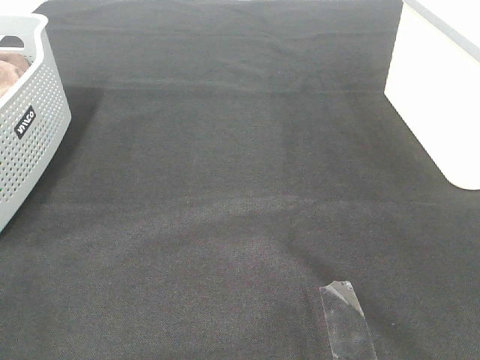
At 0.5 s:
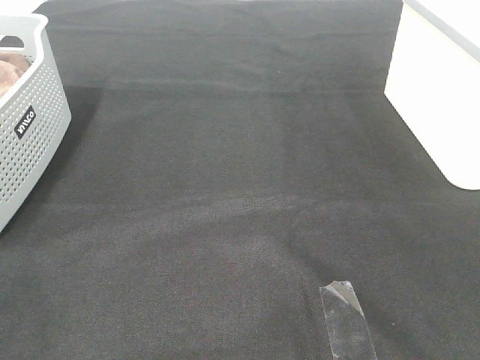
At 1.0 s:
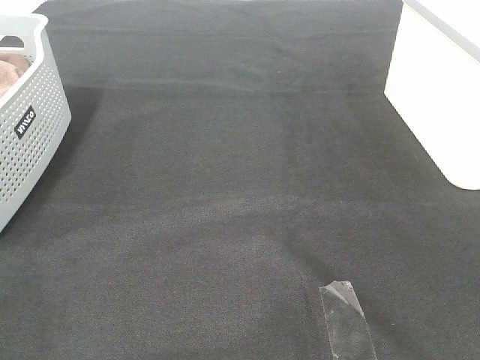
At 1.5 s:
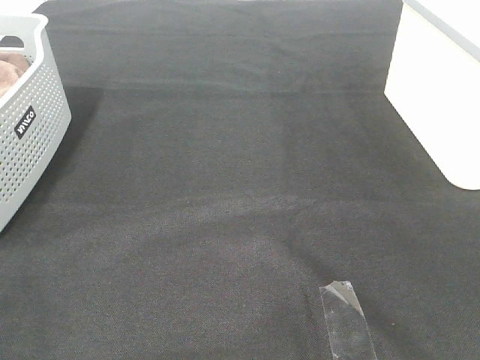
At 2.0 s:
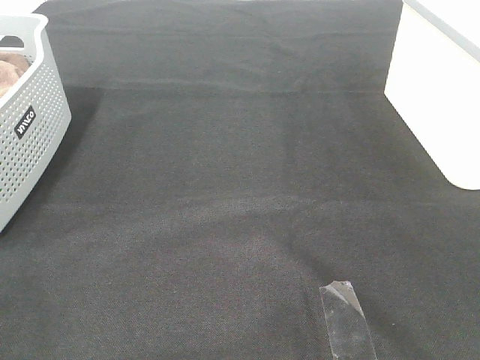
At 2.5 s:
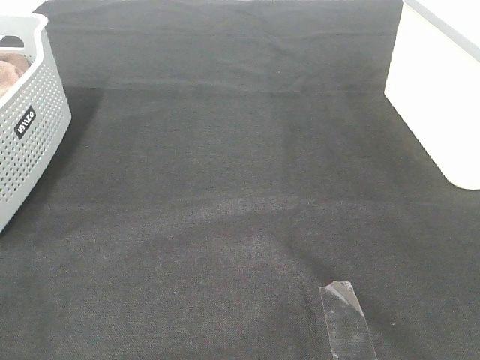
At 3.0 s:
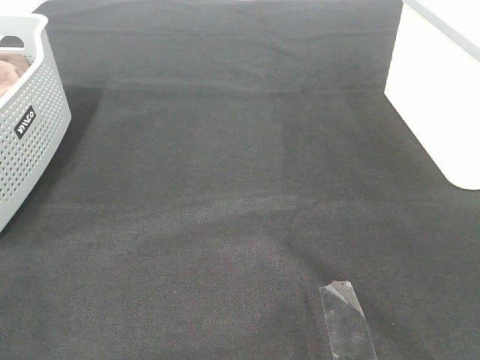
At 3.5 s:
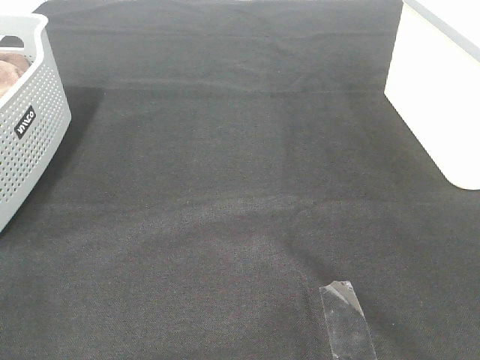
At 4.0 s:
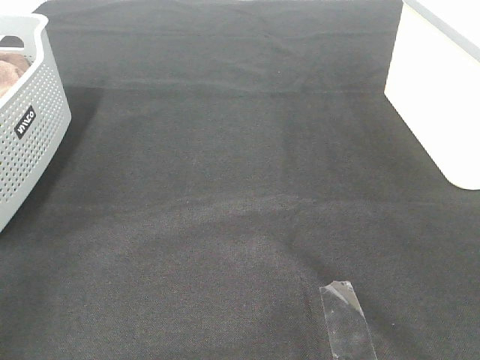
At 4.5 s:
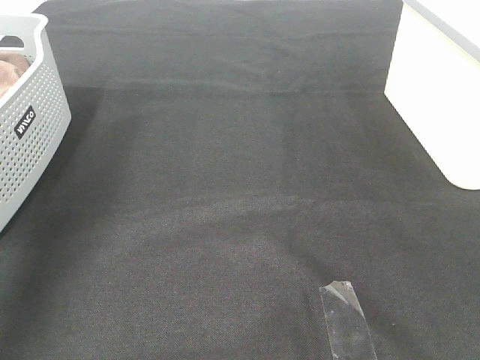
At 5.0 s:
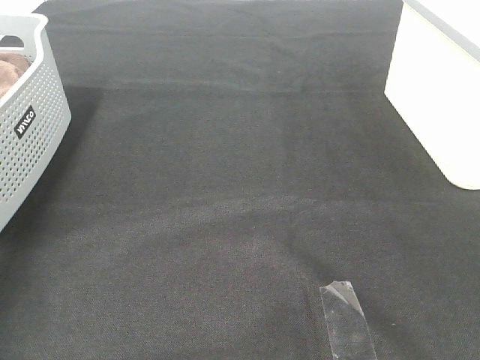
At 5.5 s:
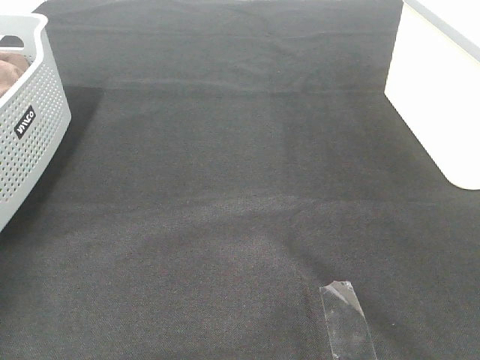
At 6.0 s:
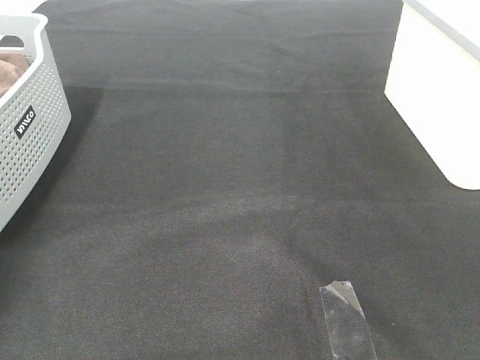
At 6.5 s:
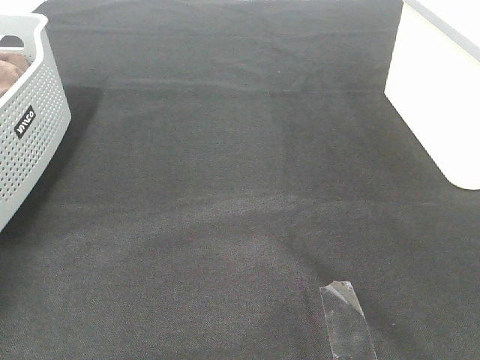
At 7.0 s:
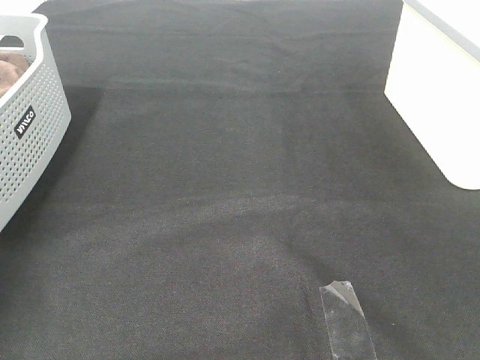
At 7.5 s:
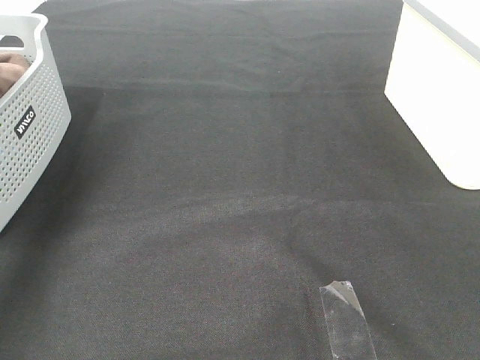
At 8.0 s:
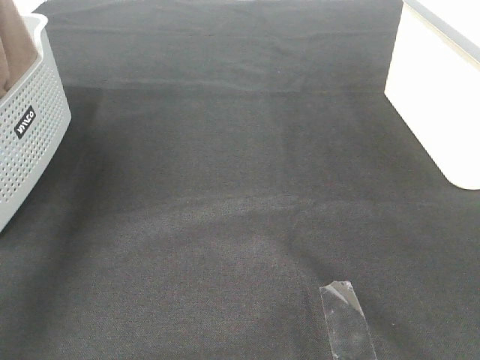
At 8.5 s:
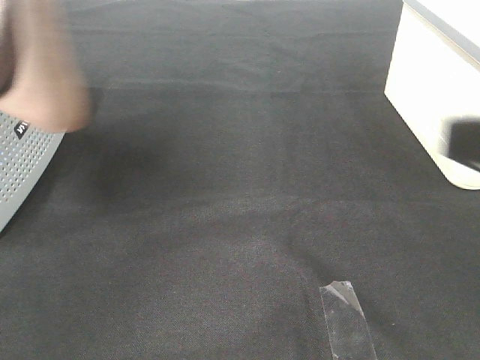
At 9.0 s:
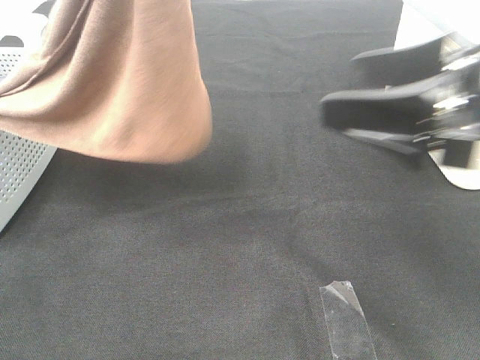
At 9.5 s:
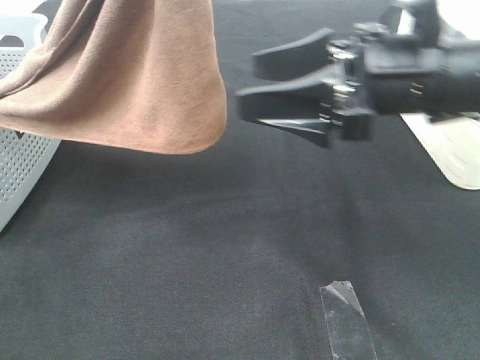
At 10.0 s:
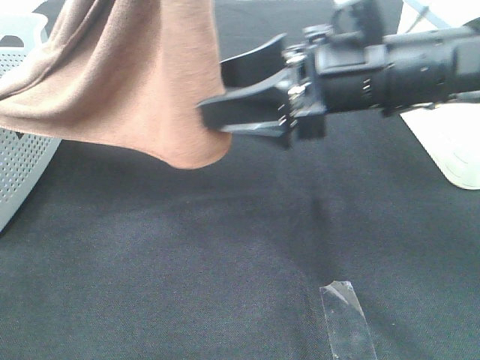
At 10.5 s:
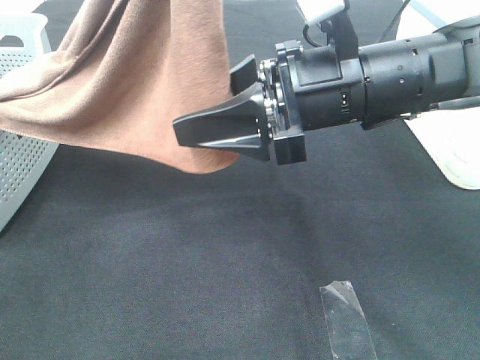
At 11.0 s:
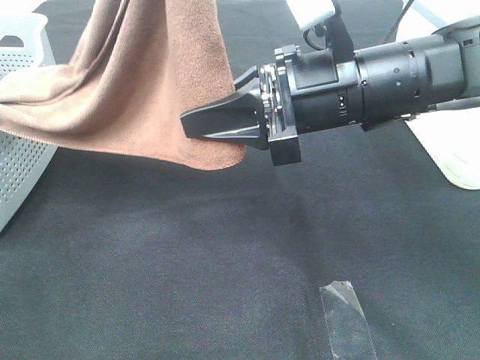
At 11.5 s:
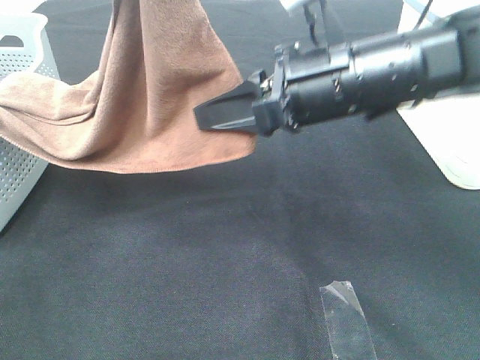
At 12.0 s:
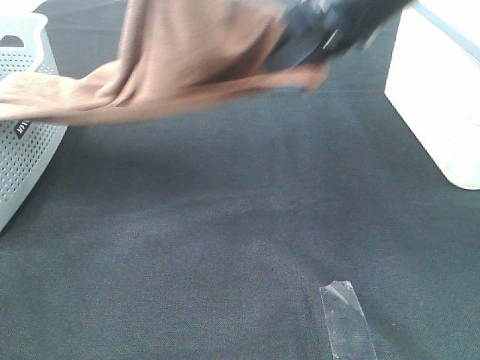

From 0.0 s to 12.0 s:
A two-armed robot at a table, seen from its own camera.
Task of the whole recording: Remove the towel and place it.
Step, from 8.0 s to 10.5 s: Right hand: grab a corner of the brown towel and straighten it.
From 0.0 s to 2.0 s: The two grippers keep their place.
From 6.0 s to 8.0 s: The left gripper shifts approximately 35 cm upward, to the right and backward, and closes its fingers.
From 8.0 s to 10.0 s: The right gripper shifts about 30 cm forward and to the left; the left gripper moves to the right and backward, roughly 20 cm.
From 10.0 s to 12.0 s: The right gripper travels upward by approximately 10 cm, and closes up.

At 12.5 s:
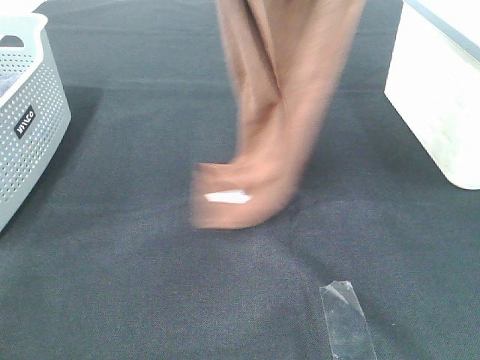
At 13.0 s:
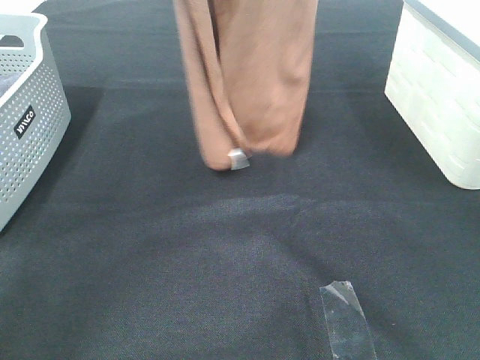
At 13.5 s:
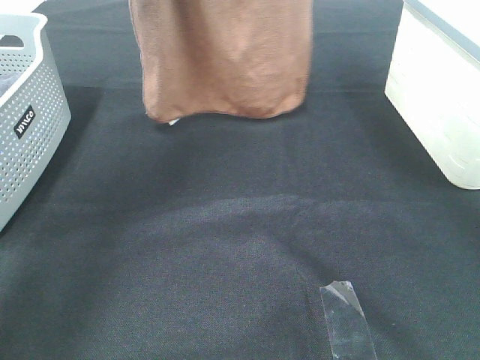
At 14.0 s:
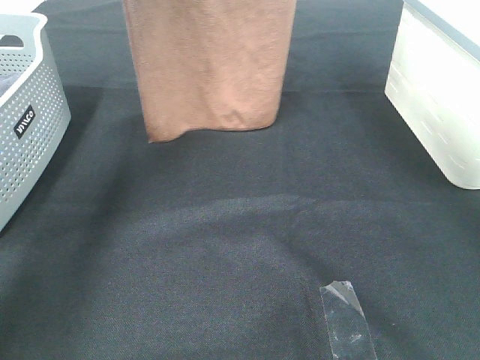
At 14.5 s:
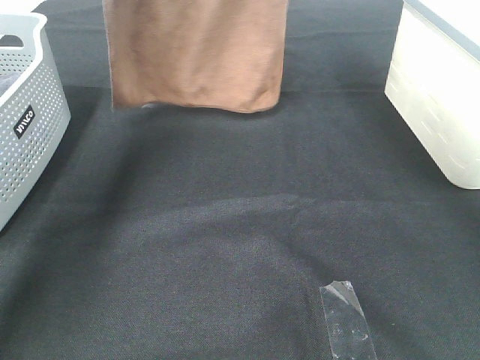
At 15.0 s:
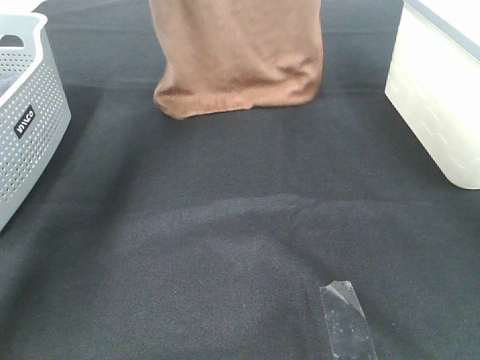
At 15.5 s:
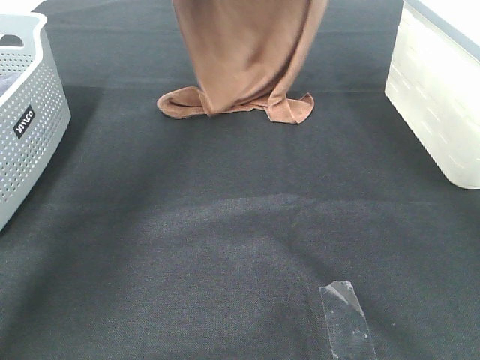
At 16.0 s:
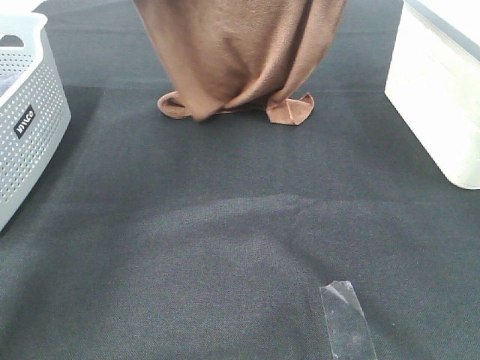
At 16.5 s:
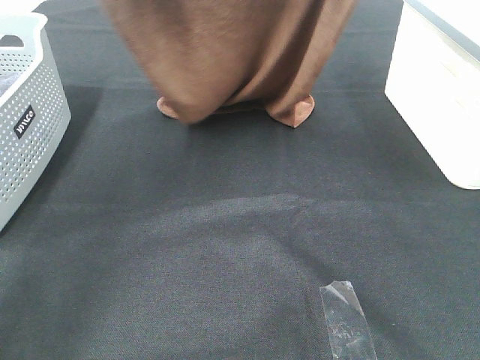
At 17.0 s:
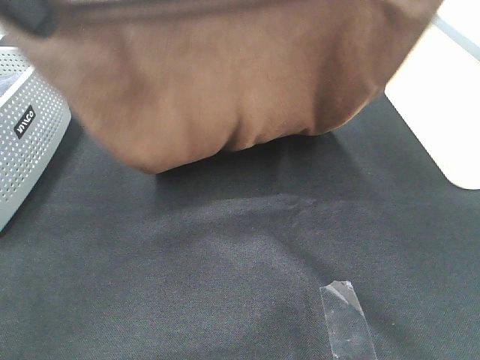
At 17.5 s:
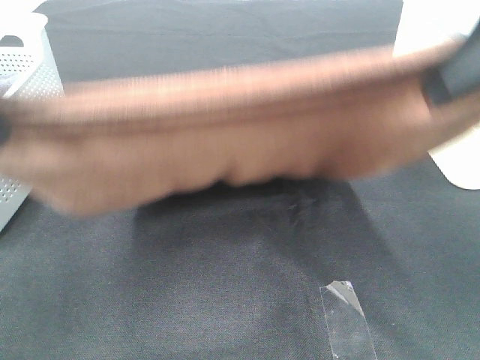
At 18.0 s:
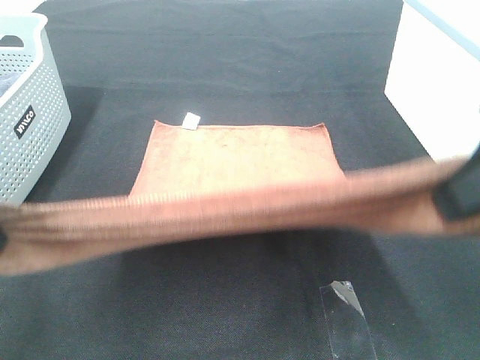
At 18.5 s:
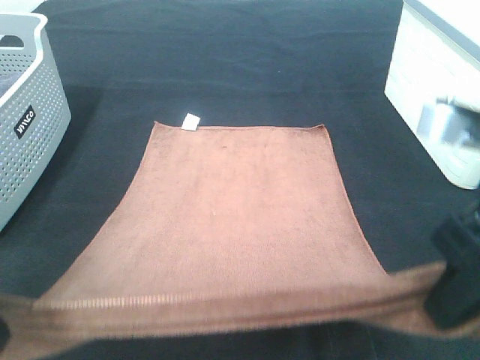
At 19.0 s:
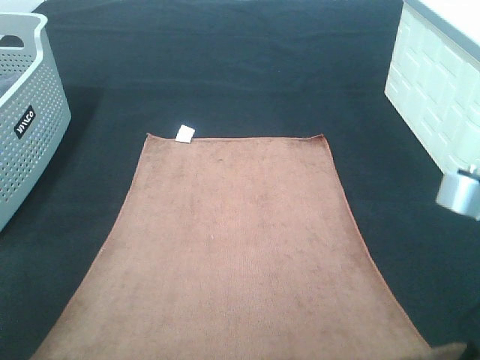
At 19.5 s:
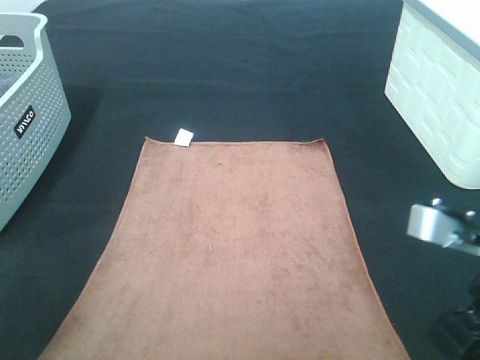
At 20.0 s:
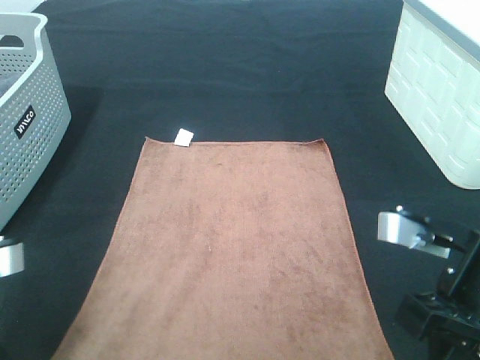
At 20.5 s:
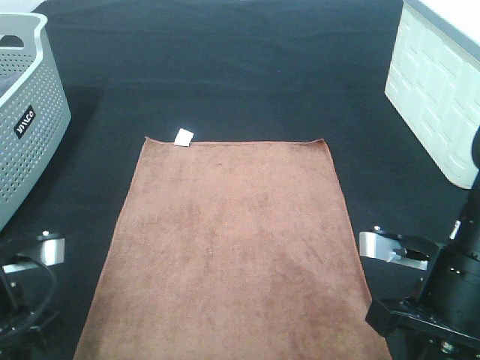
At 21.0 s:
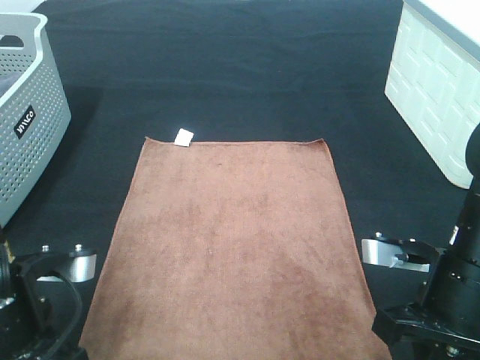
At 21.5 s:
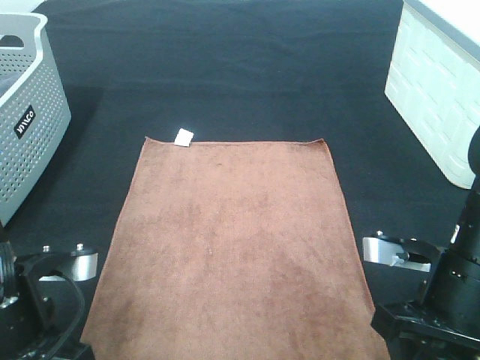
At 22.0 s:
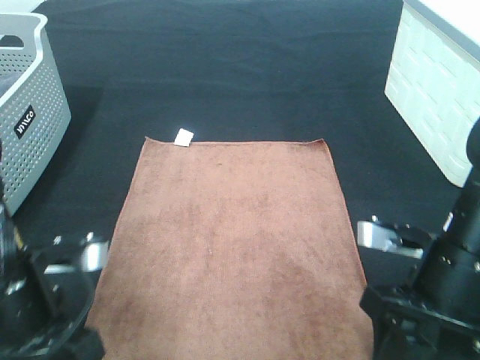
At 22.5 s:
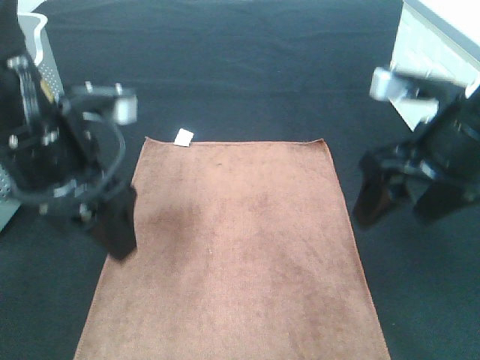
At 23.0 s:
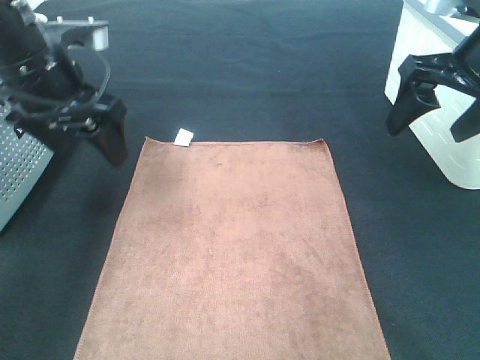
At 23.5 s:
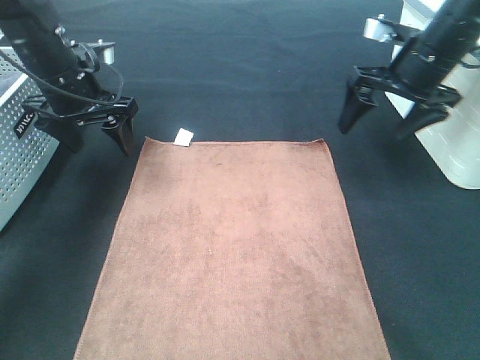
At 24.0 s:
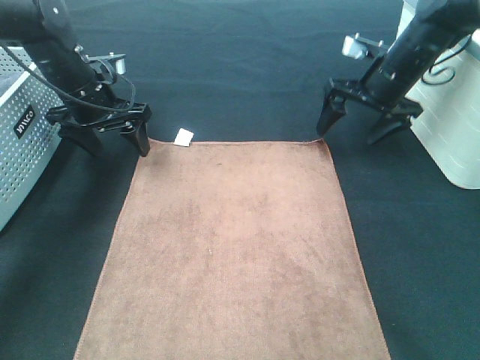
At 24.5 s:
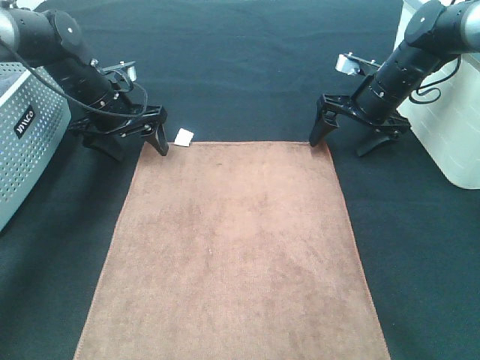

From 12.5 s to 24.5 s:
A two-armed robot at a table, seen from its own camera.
Task of the whole recording: Remove the towel and place it.
Step, from 12.5 s to 17.0 s: Left hand: spread the brown towel flat on the table.
Step, from 12.5 s to 17.0 s: Right hand: spread the brown towel flat on the table.
From 12.5 s to 14.5 s: The left gripper goes roughly 20 cm forward and to the left, while the right gripper is displaced forward by about 15 cm.
From 14.5 s to 16.5 s: The two grippers go about 15 cm backward.
From 16.5 s to 18.5 s: Both grippers move backward and downward, about 25 cm.
From 18.5 s to 20.5 s: Both grippers move downward, roughly 10 cm.
From 20.5 s to 22.5 s: The right gripper is displaced upward and forward by about 15 cm, and opens up, while the left gripper is displaced forward and upward by some 10 cm, and opens.
From 22.5 s to 24.5 s: The two grippers go roughly 25 cm forward and downward.

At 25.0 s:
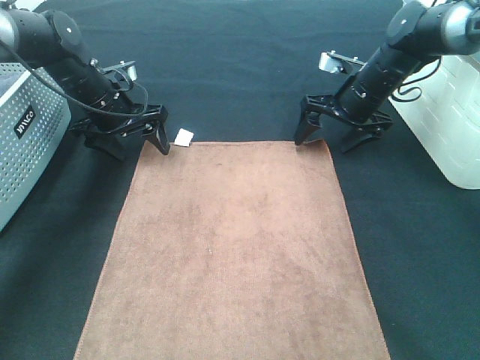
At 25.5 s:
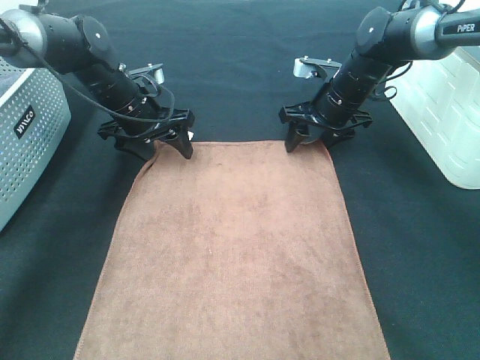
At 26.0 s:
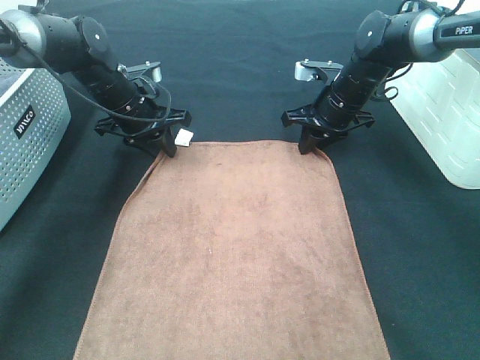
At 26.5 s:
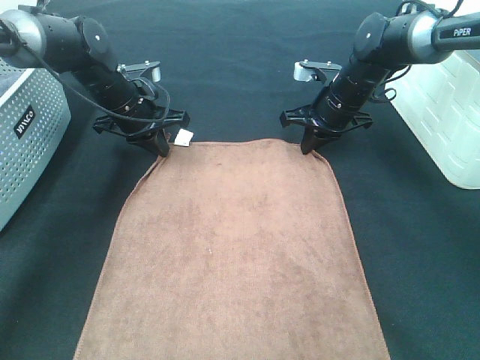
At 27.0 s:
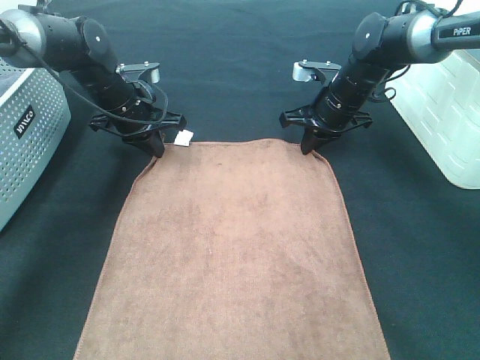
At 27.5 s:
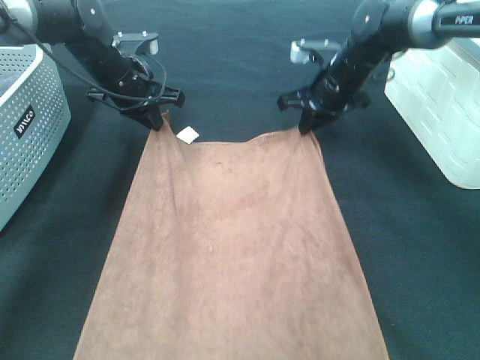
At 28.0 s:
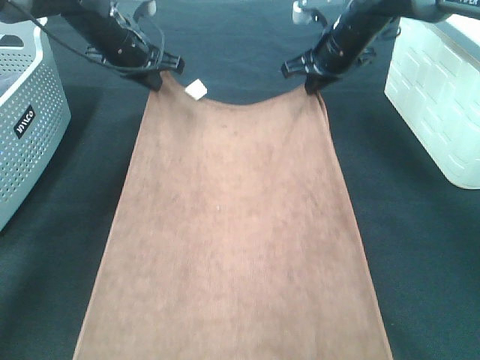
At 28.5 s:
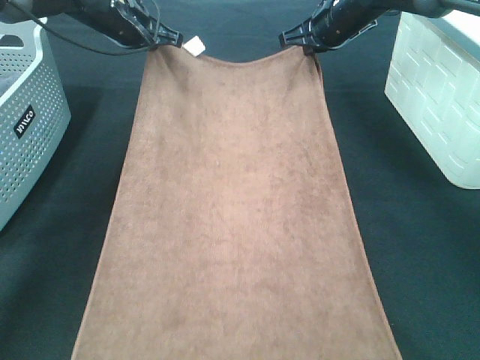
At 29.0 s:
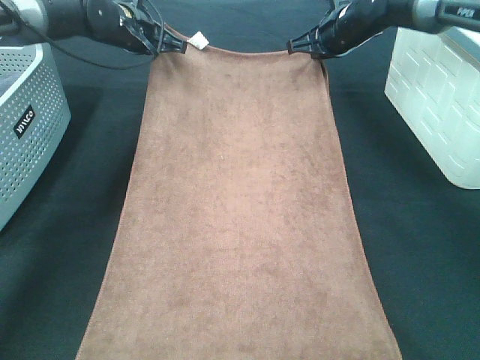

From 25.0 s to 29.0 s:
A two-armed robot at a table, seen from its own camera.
Task of the whole recording: Remove the towel and place it.
From 25.0 s to 27.0 s: The left gripper closes its fingers, while the right gripper closes up.
From 27.0 s to 29.0 s: The right gripper heads forward and upward, covering roughly 10 cm, while the left gripper travels upward and forward by roughly 10 cm.
